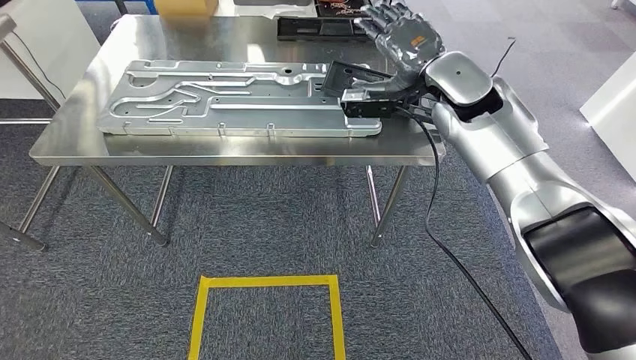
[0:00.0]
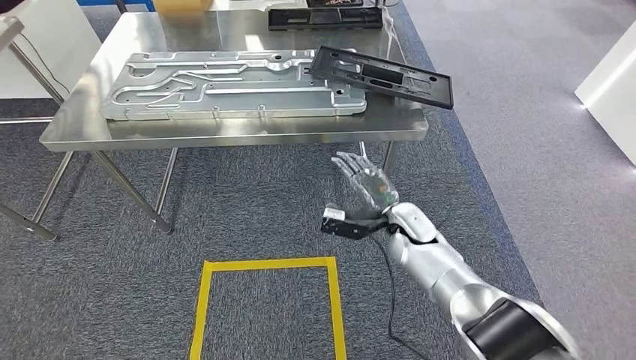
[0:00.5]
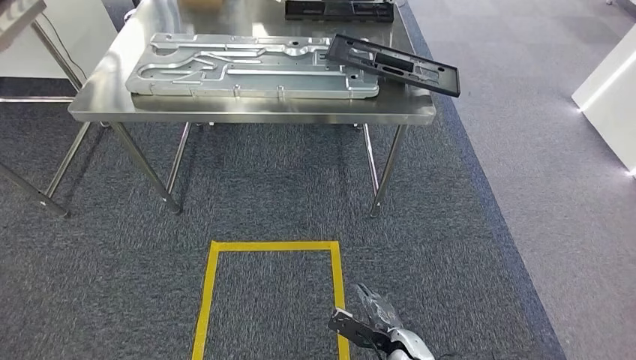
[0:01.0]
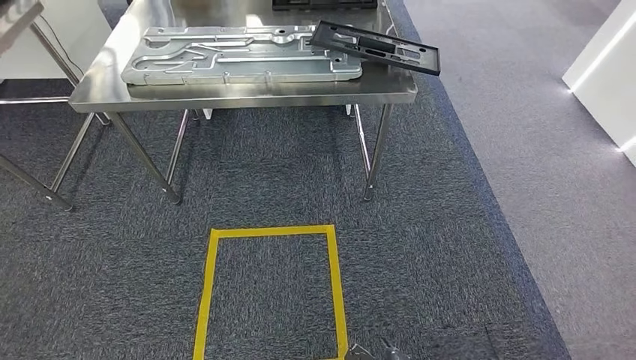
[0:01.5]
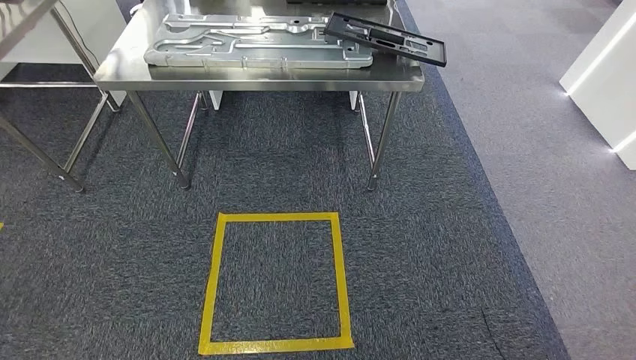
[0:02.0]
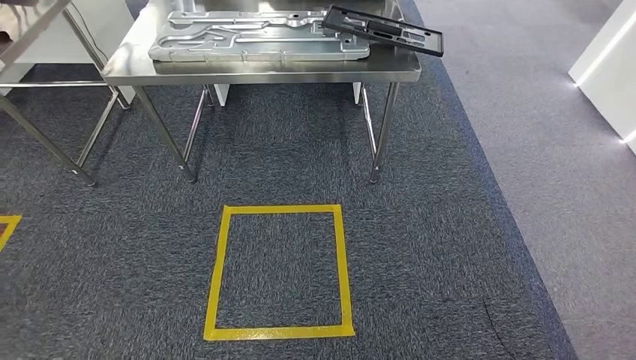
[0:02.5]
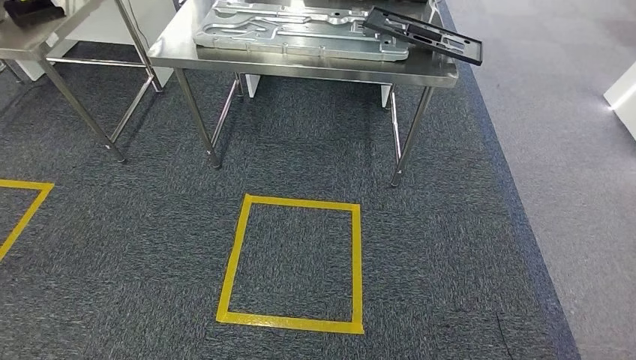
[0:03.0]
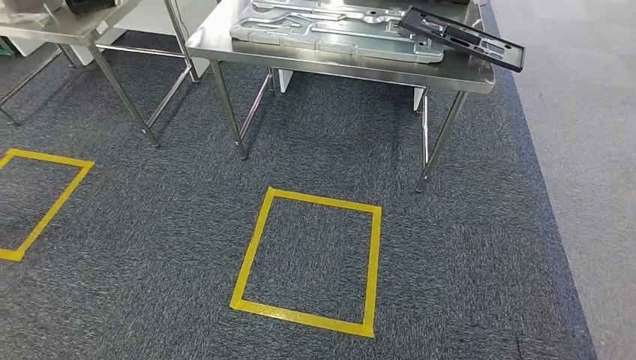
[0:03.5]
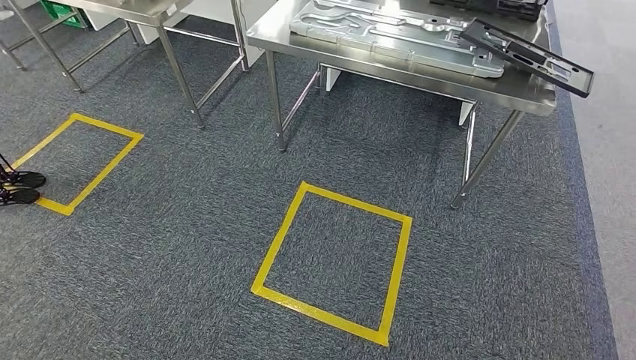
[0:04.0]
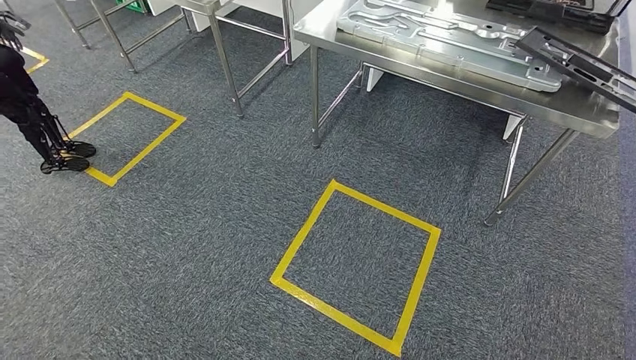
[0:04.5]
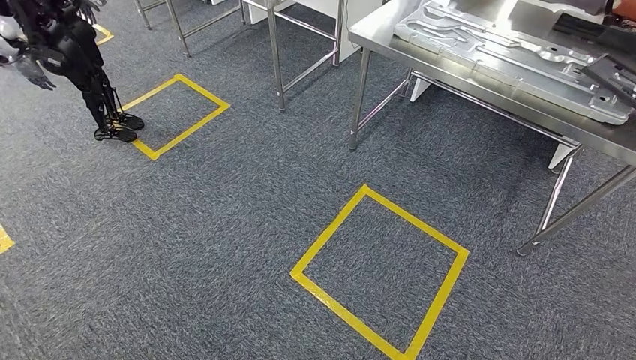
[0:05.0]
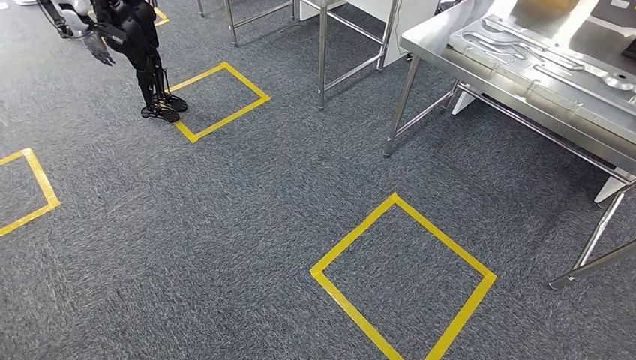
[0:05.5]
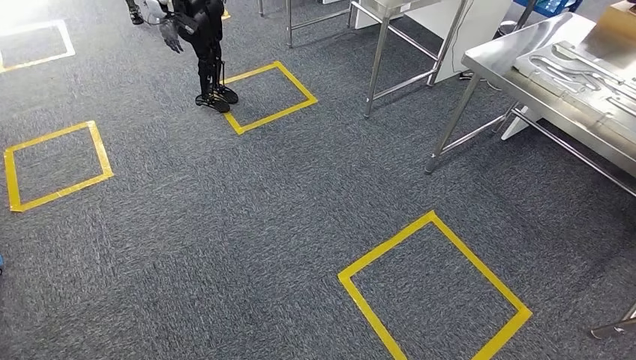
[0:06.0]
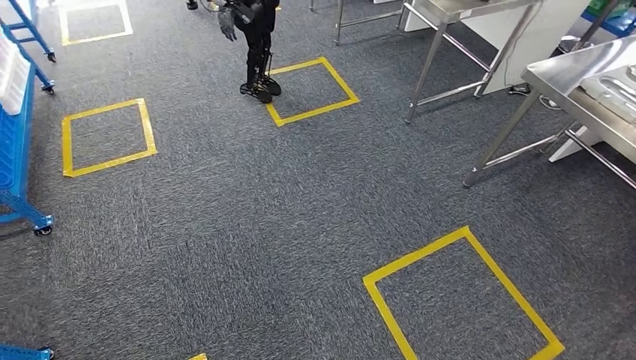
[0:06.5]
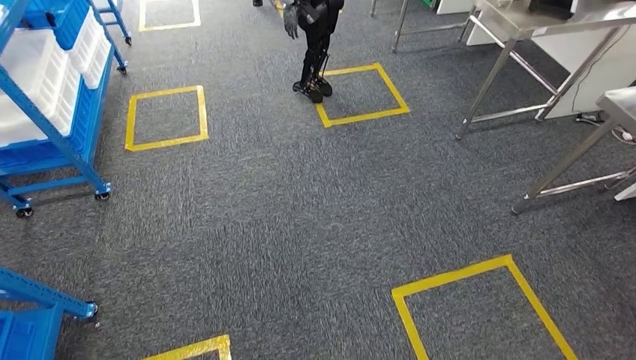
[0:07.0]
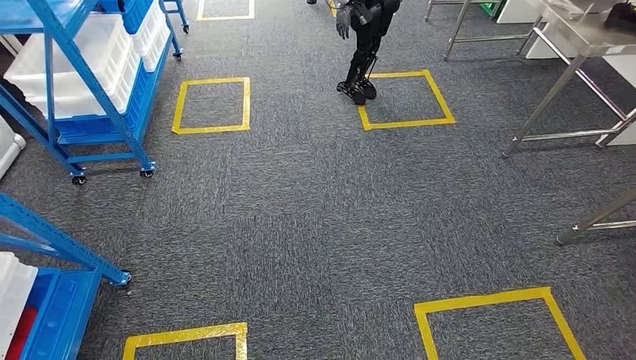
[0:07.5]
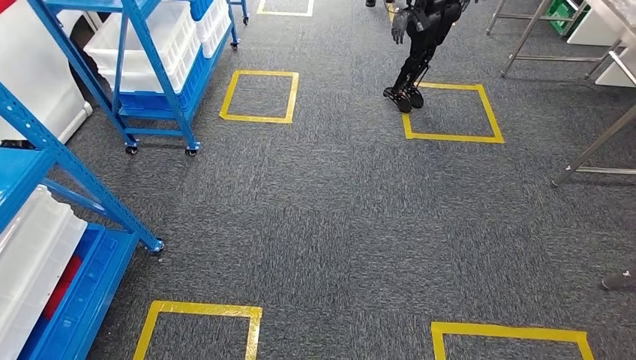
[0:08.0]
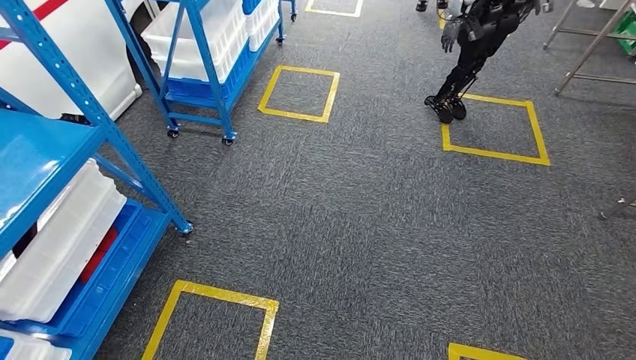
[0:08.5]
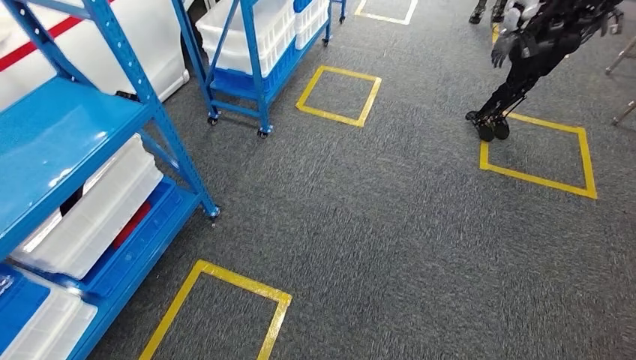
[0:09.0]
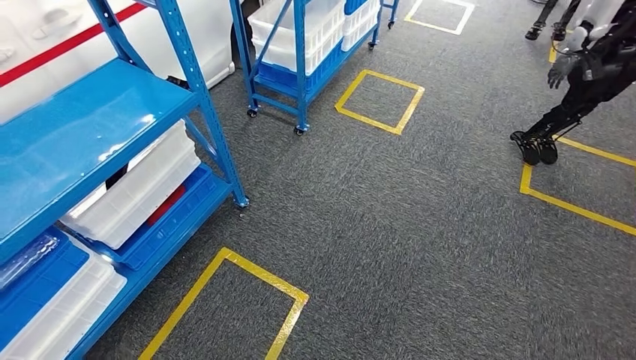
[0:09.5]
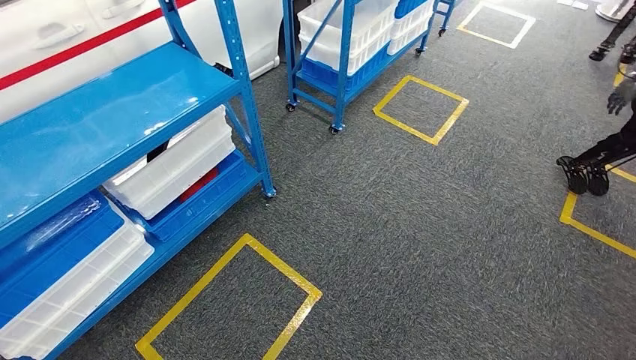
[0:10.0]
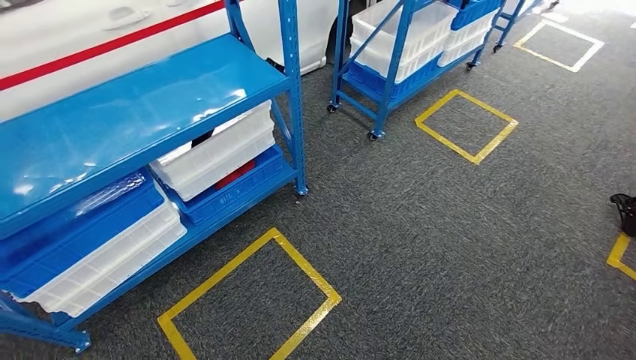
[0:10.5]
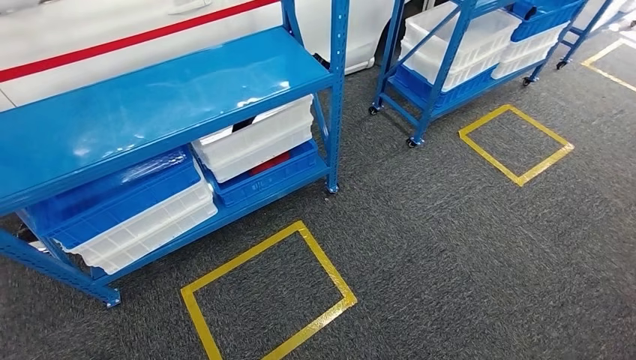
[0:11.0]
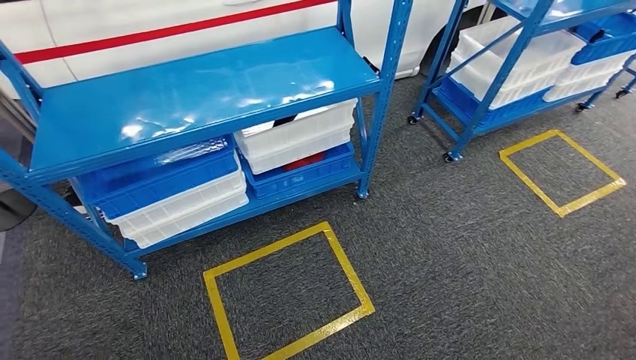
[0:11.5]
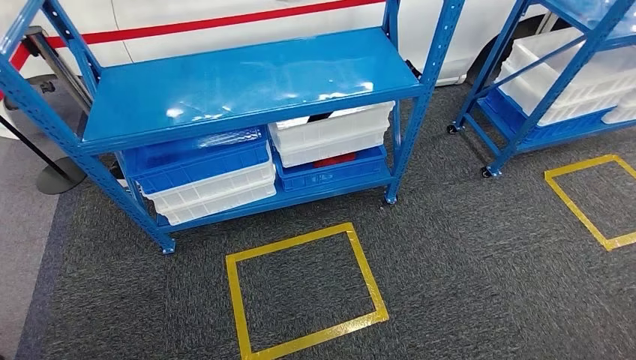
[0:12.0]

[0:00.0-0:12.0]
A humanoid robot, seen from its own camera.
Step, 0:04.0 to 0:12.0: Move to the initial position of the shelf.
